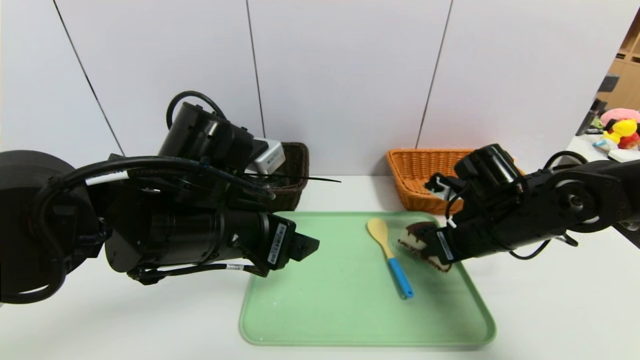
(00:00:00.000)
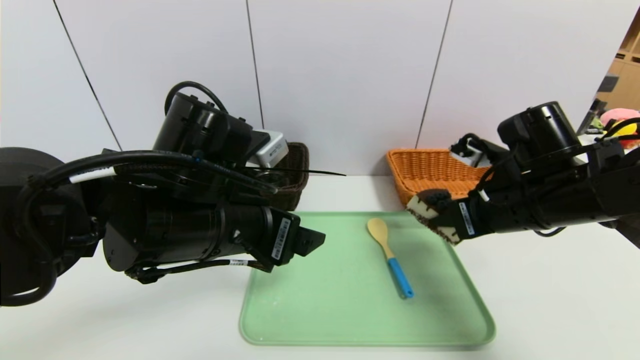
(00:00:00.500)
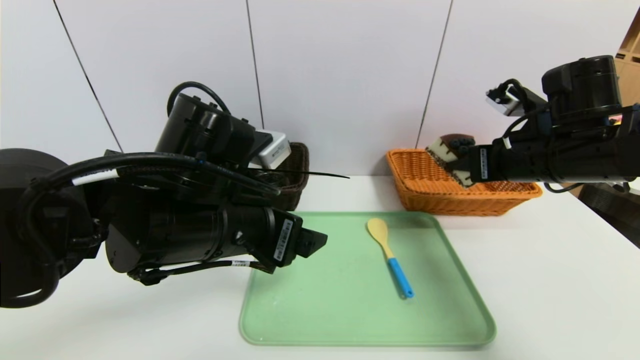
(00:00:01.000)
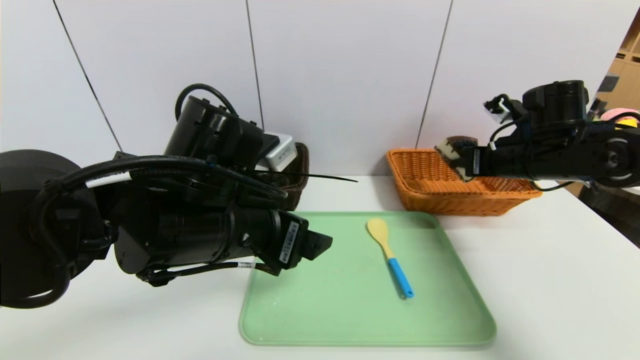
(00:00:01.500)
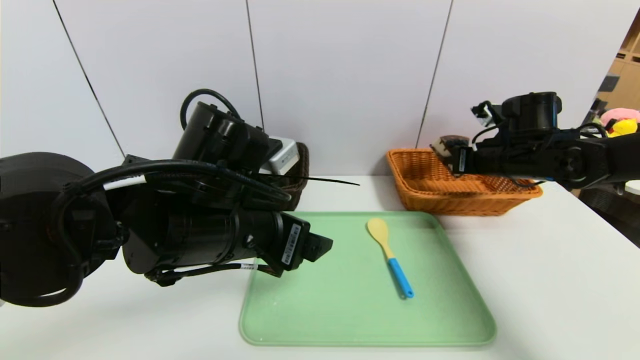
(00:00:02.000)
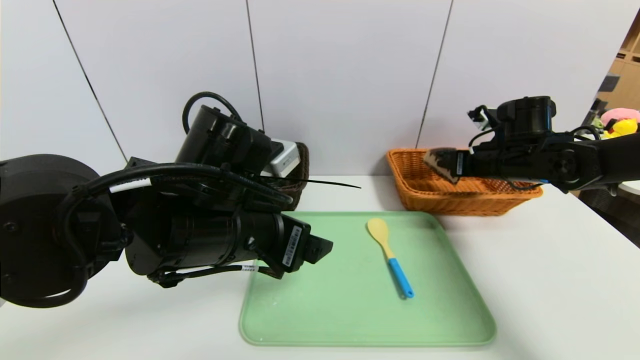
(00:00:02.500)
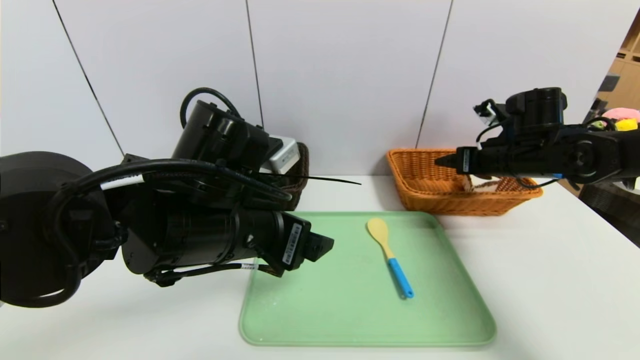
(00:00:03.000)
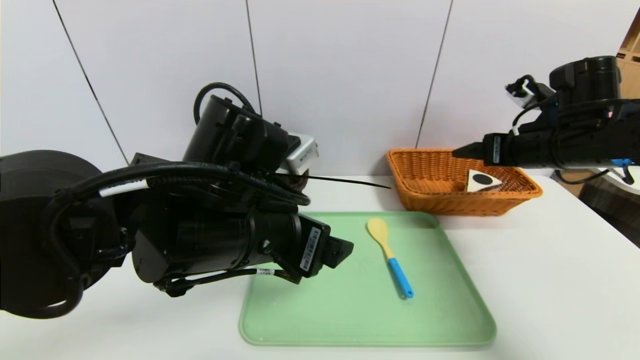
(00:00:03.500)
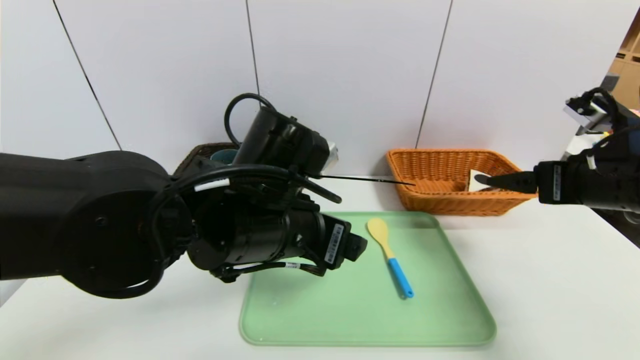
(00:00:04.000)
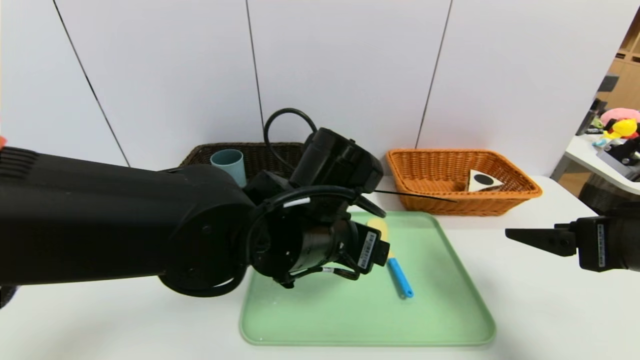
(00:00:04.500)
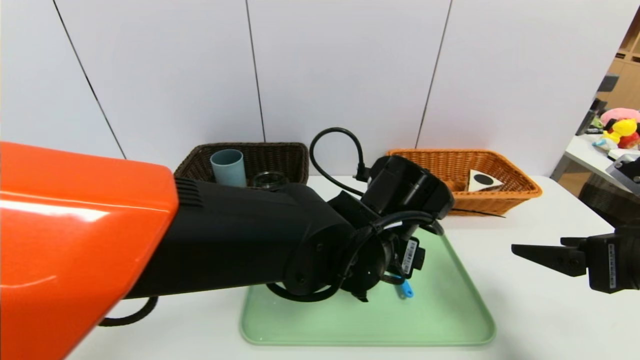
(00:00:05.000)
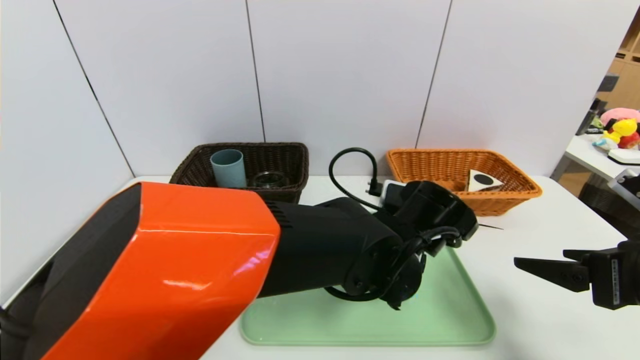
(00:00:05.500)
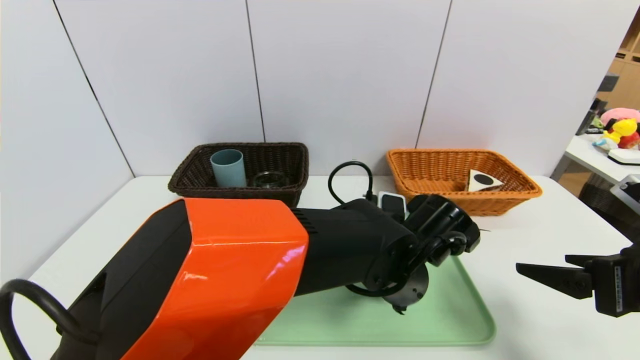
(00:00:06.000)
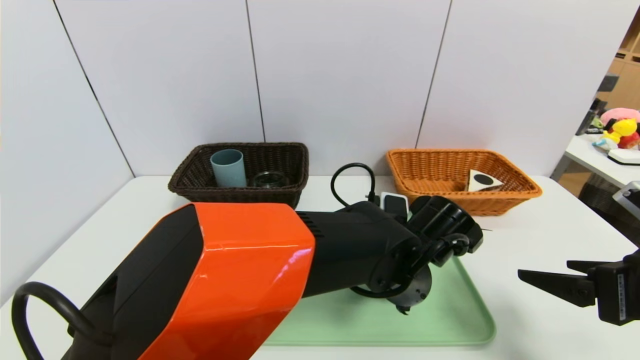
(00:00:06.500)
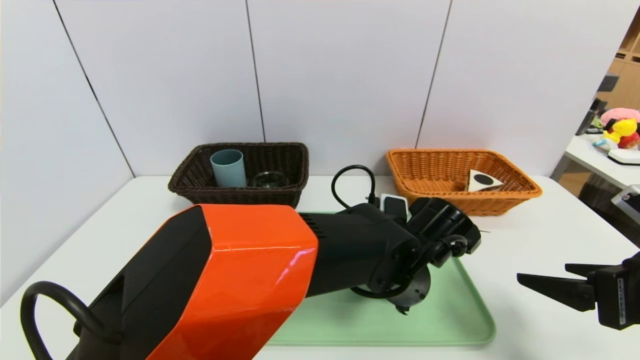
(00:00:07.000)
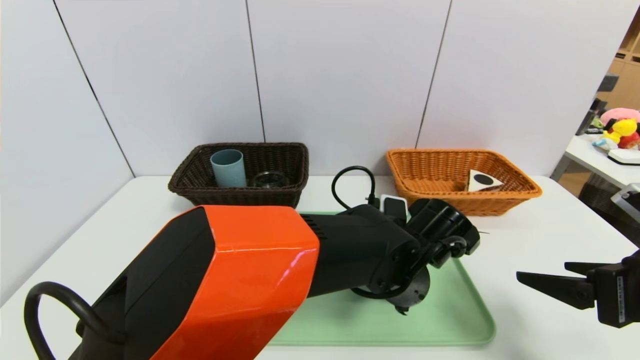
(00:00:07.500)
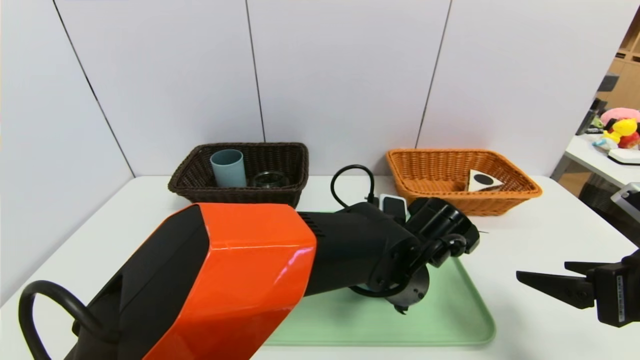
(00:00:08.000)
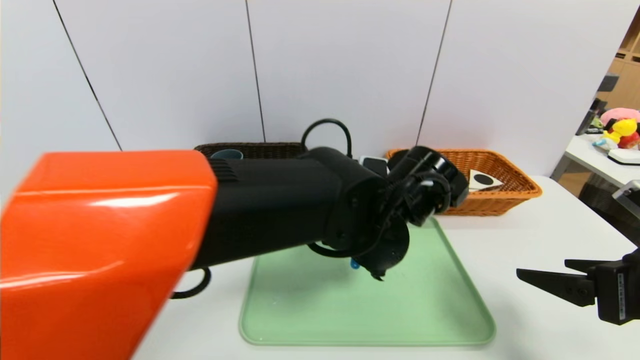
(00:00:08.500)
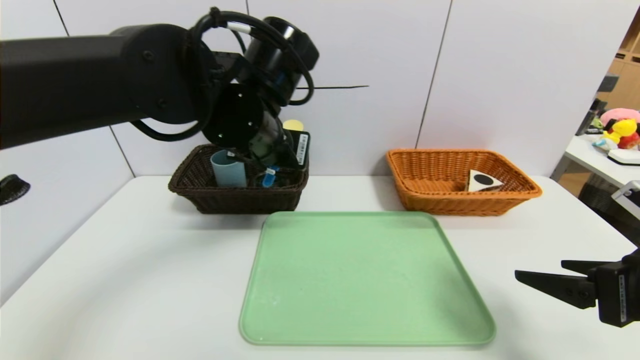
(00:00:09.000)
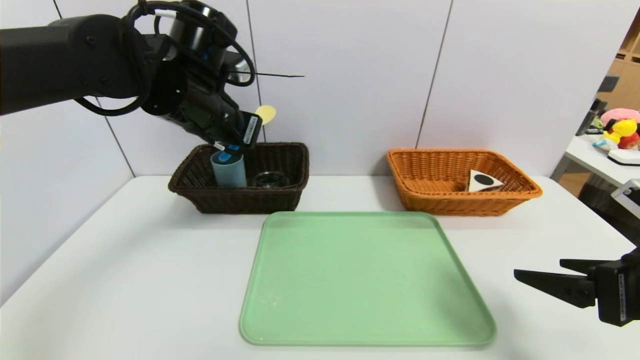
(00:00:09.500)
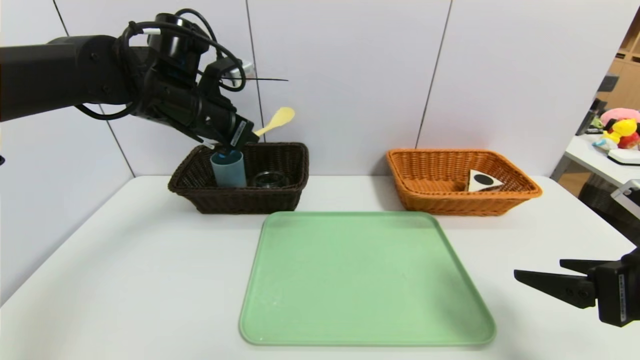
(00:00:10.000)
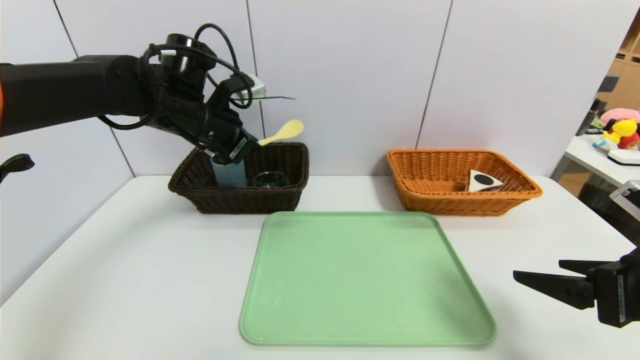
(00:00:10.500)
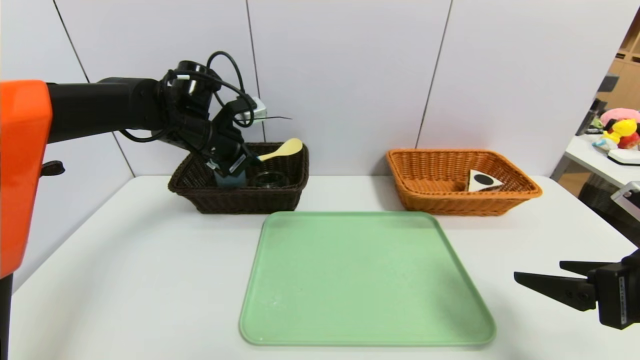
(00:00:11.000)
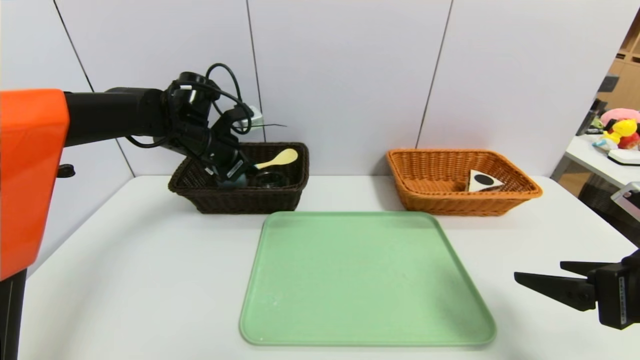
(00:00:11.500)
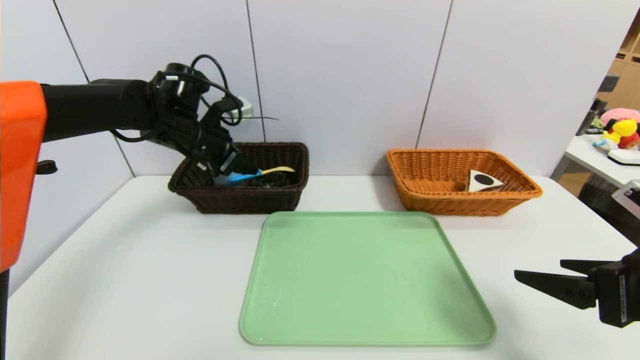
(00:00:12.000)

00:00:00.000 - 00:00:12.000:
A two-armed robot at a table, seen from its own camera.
Task of the whole recording: place the food in the right basket with the right gripper, and place the non food items in the left basket with the left gripper.
Step, 00:00:00.000 - 00:00:03.500: Grasp the triangle cake and put it in the right basket.
00:00:00.000 - 00:00:02.000: The right gripper goes some 15 cm forward and to the right.
00:00:02.000 - 00:00:04.000: The right gripper heads backward, covering about 15 cm, and opens up.
00:00:04.000 - 00:00:06.000: The left gripper shifts about 15 cm to the right and downward. Meanwhile the right gripper travels backward by some 10 cm.
00:00:06.000 - 00:00:08.000: The left gripper closes.
00:00:08.000 - 00:00:10.000: The left gripper shifts some 35 cm to the left, upward and forward.
00:00:10.000 - 00:00:12.000: The left gripper is displaced downward by approximately 5 cm, and opens.

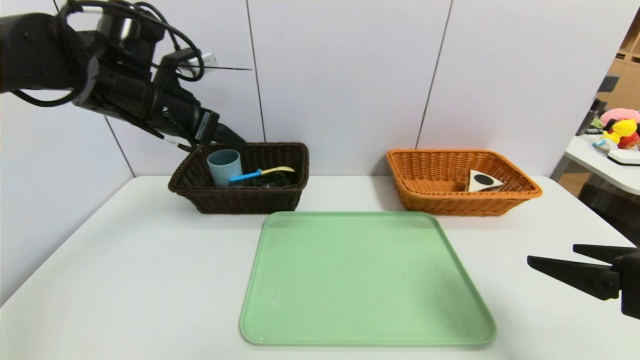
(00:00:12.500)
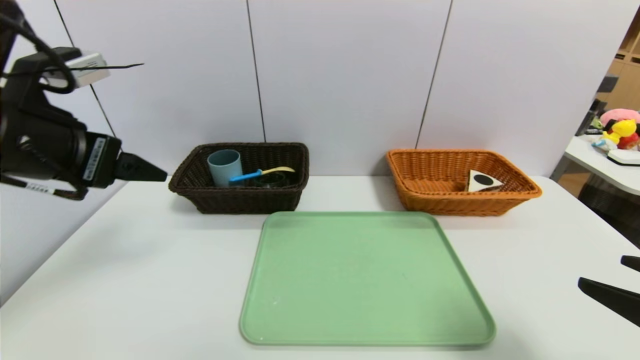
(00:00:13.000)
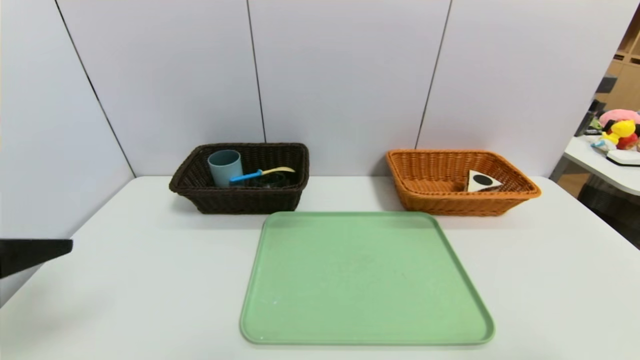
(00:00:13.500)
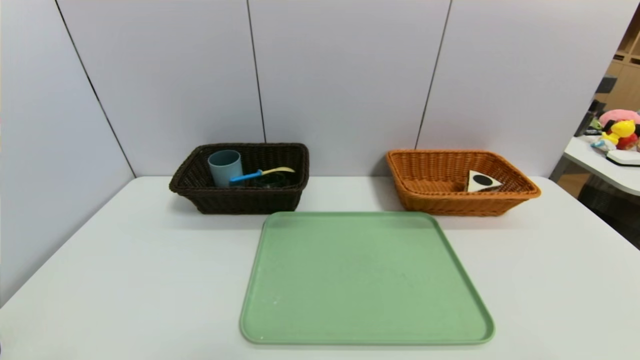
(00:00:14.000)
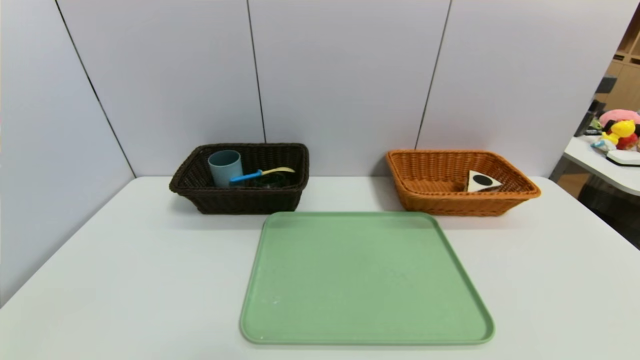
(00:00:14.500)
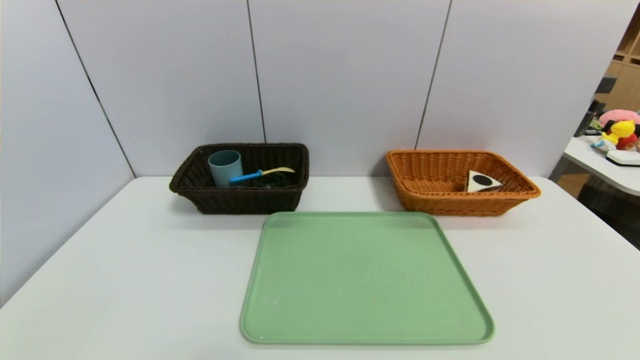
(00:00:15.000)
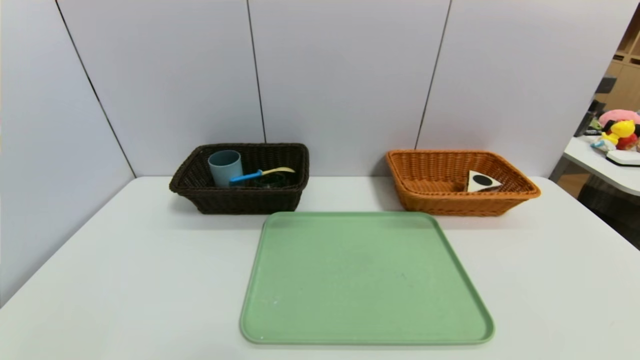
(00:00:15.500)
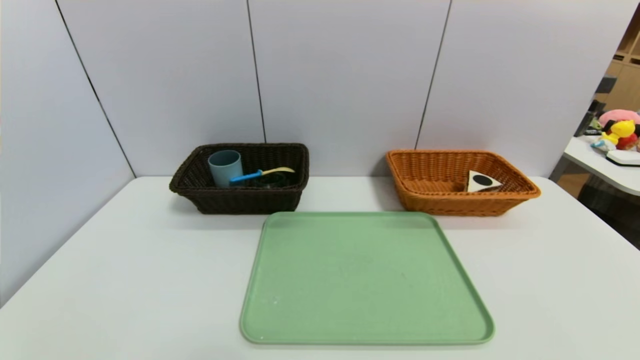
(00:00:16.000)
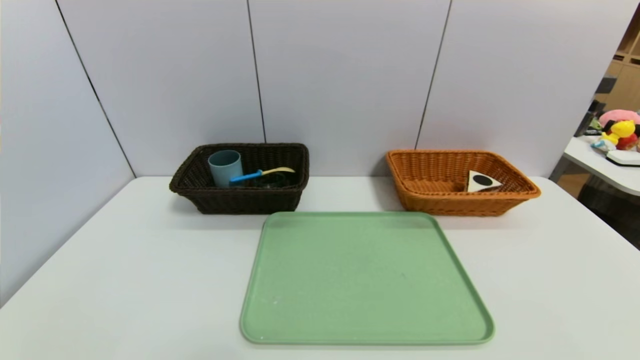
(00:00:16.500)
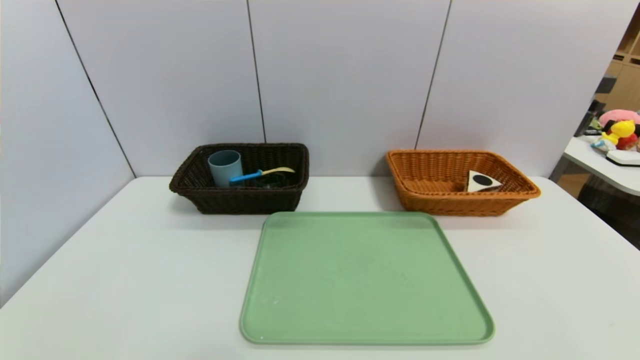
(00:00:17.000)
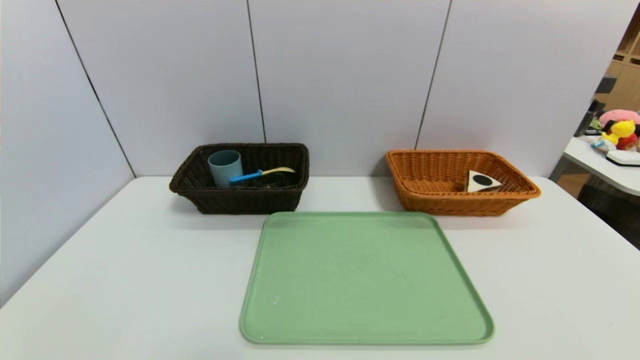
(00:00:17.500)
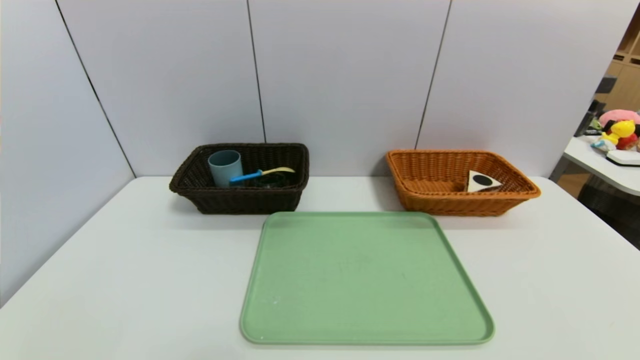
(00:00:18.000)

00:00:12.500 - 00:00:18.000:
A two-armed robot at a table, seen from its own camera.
Task of the whole recording: place the food in the right basket with the right gripper, and place the non food items in the left basket with the left gripper.
00:00:12.500 - 00:00:14.500: The right gripper moves backward, about 15 cm; the left gripper travels backward by approximately 40 cm.

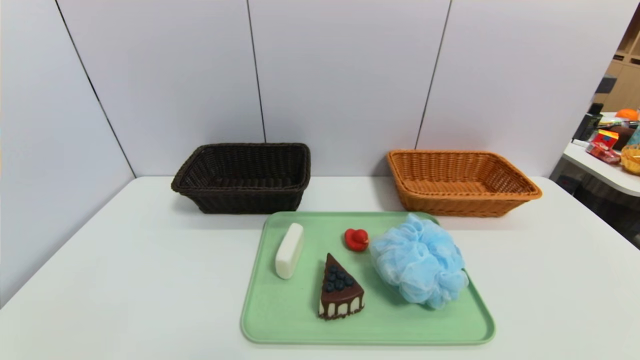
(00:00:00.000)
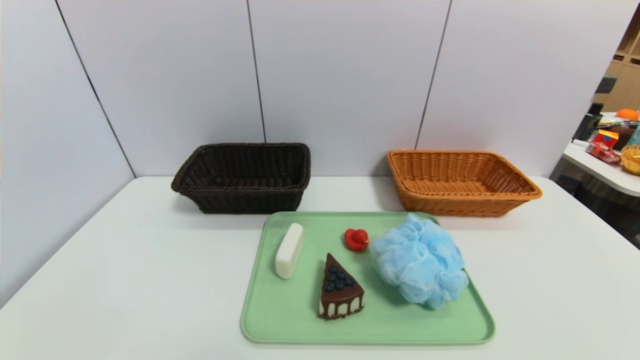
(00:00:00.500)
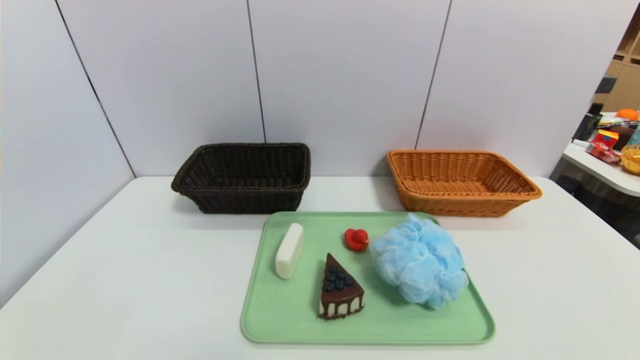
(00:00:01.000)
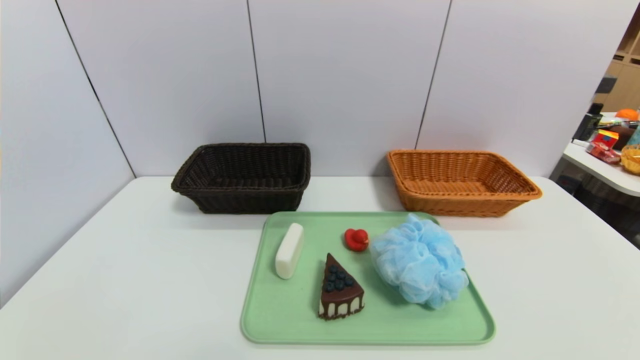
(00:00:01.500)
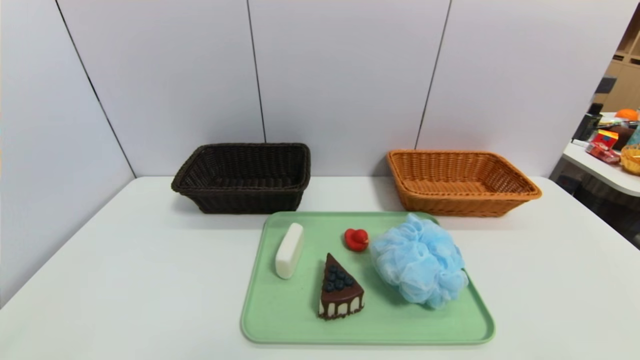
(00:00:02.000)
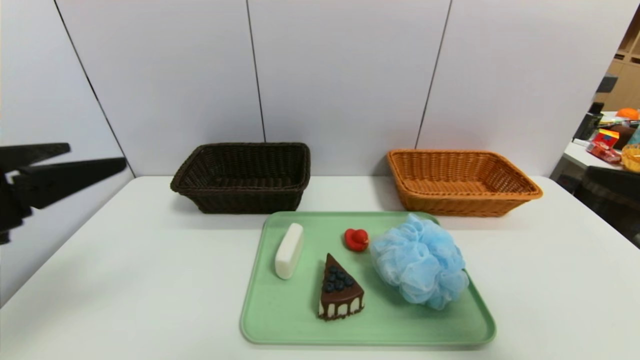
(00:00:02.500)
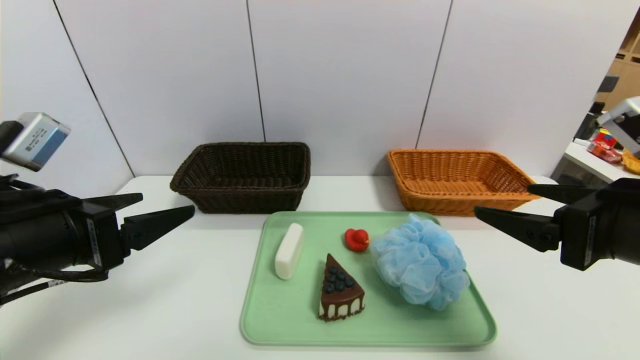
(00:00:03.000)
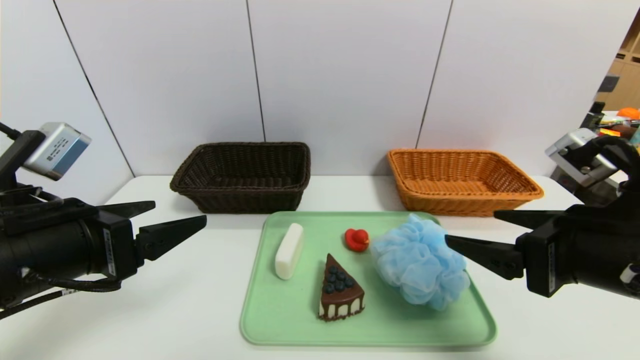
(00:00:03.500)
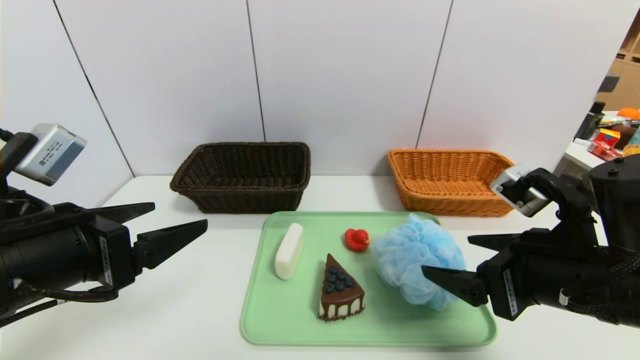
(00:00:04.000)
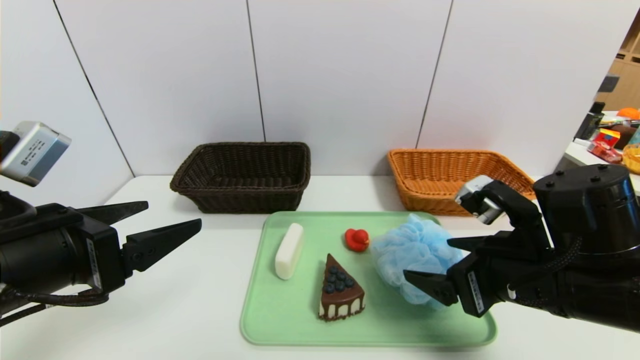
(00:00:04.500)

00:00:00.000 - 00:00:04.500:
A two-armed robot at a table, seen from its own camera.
Task of the whole recording: place the food in the right basket with the right gripper, and place the non food items in the left basket with the left gripper.
00:00:02.000 - 00:00:04.500: The left gripper is displaced forward by about 15 cm. The right gripper shifts some 25 cm forward and to the left.
